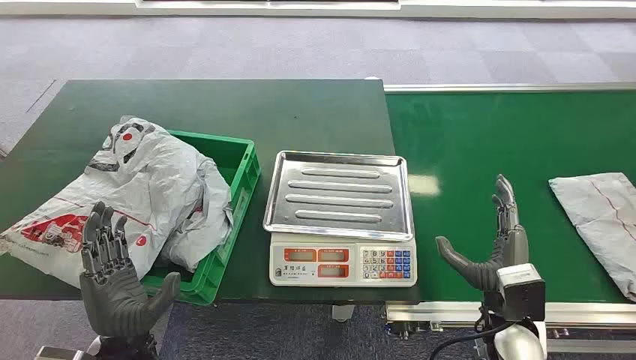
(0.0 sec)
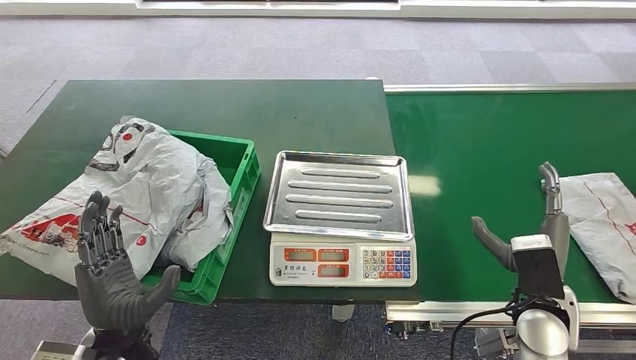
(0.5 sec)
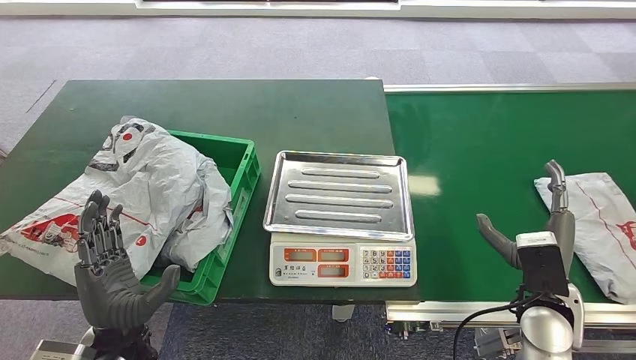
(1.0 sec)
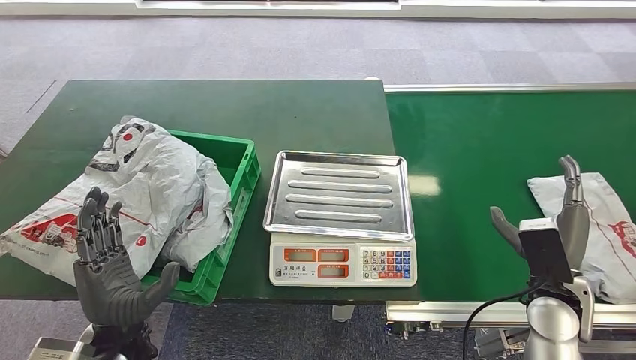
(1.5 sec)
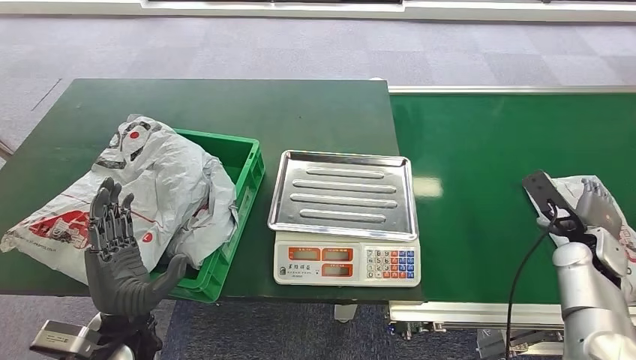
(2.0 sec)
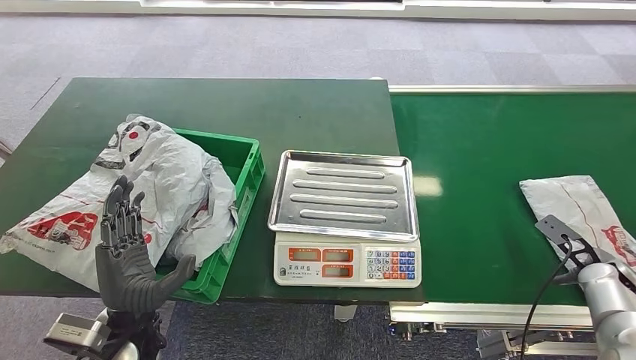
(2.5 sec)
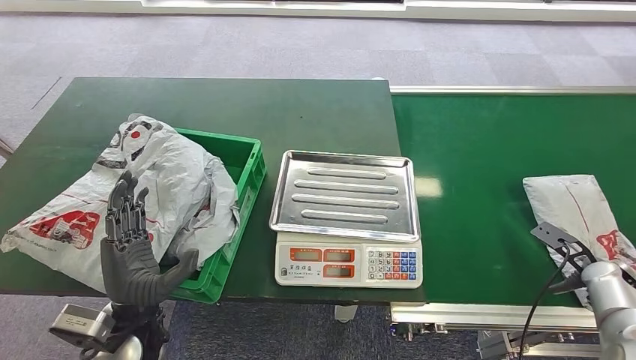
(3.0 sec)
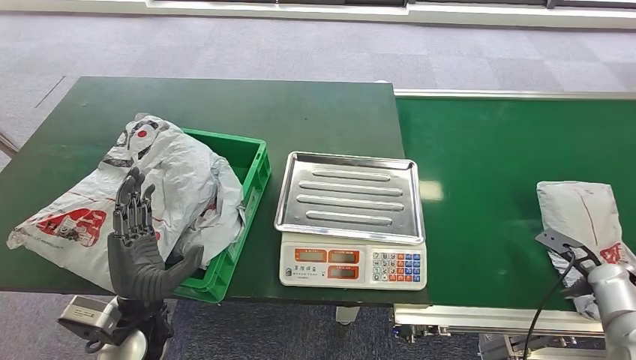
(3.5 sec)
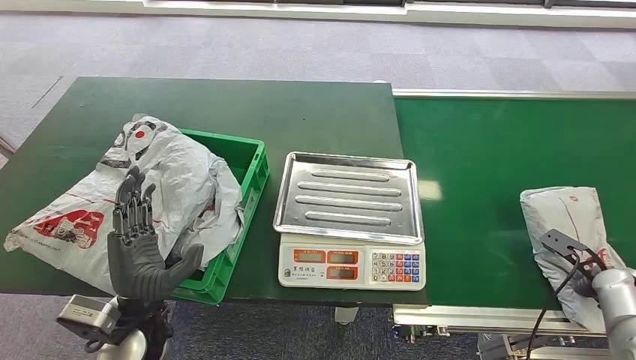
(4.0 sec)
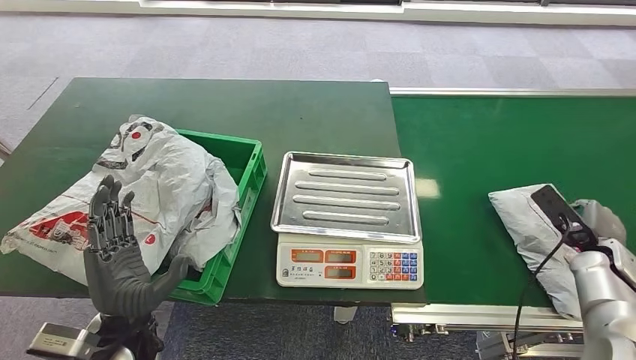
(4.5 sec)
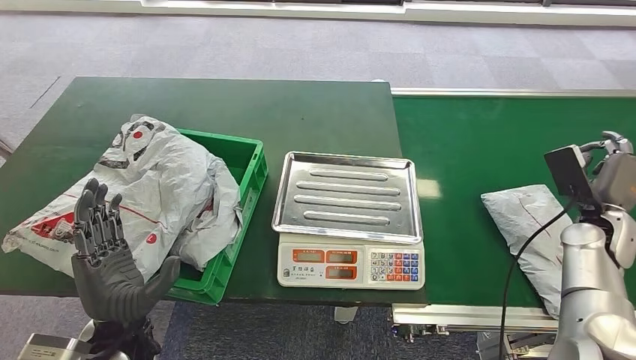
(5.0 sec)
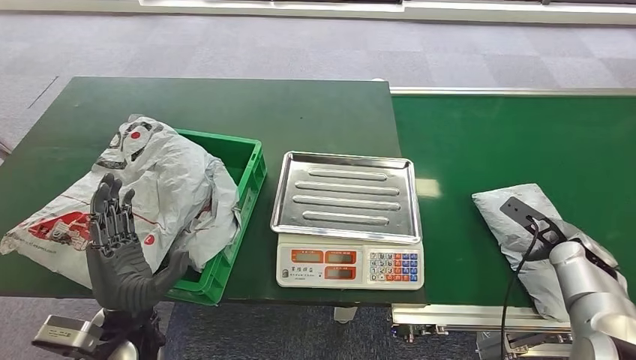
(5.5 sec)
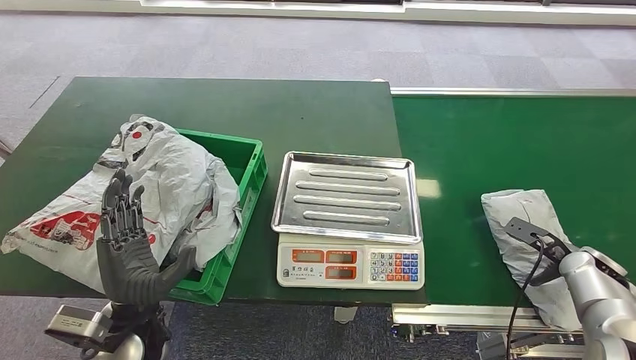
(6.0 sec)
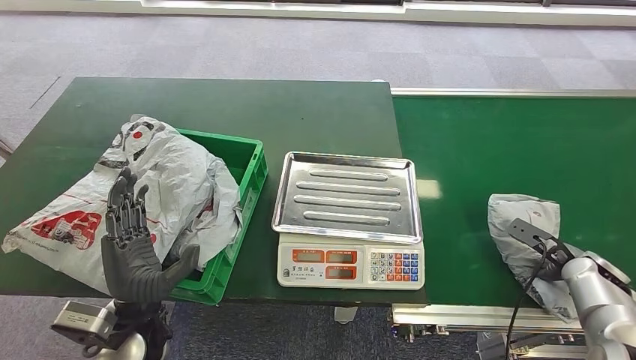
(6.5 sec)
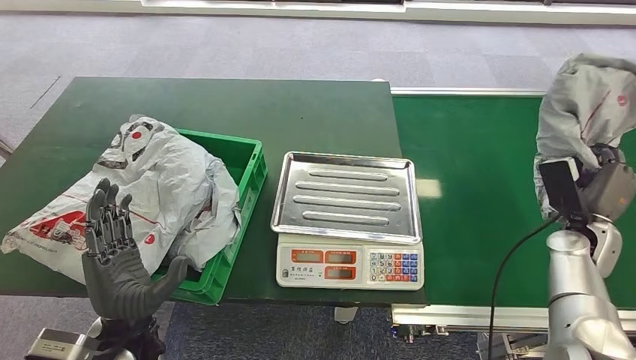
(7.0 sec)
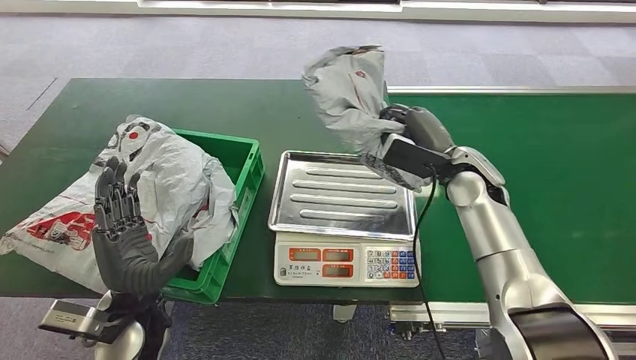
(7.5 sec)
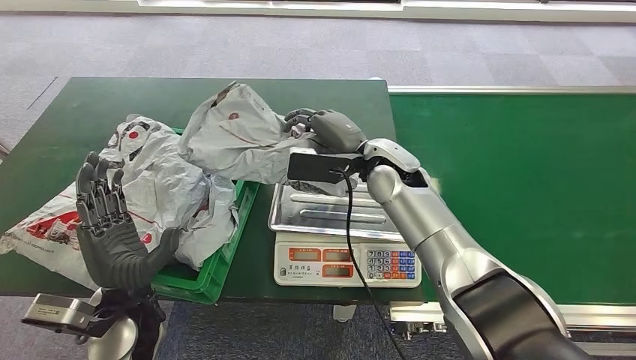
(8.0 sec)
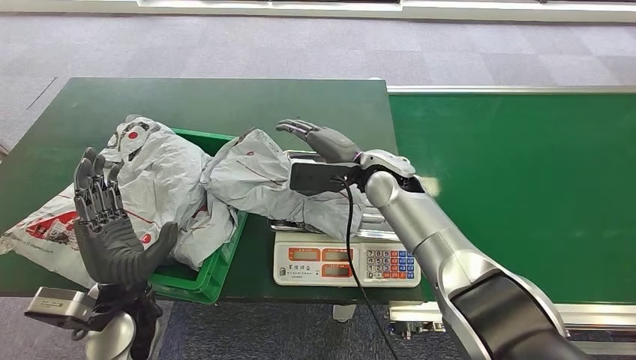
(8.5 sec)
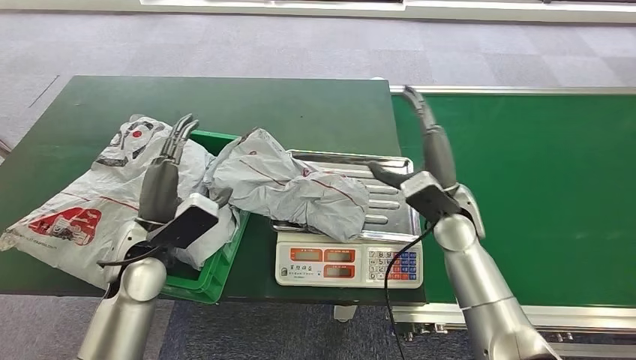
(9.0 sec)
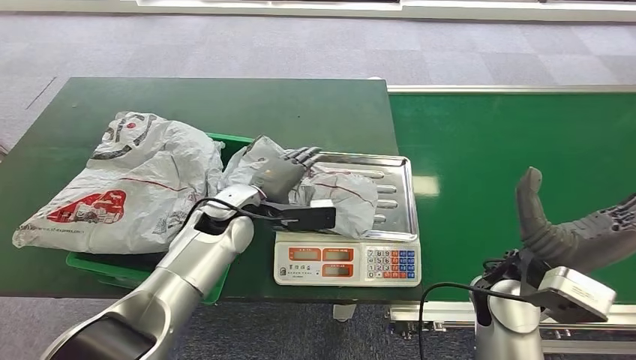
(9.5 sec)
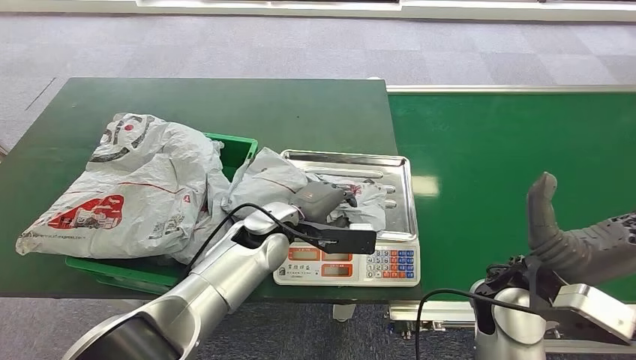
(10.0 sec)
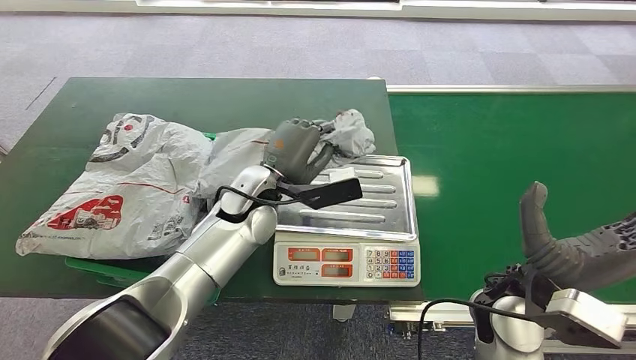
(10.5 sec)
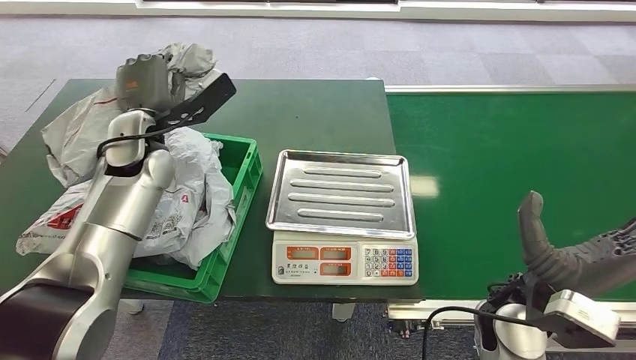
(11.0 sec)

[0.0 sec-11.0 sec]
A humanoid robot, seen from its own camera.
Step, 0.0 sec to 7.0 sec: Pick up the package from the conveyor belt.
Step, 7.5 sec to 9.0 sec: Place the package onto the inbound machine.
Step, 9.5 sec to 10.5 sec: Pick up the package from the inbound machine.
